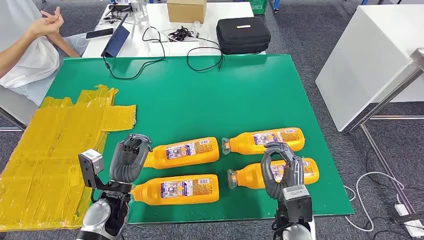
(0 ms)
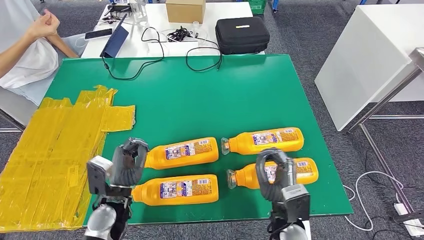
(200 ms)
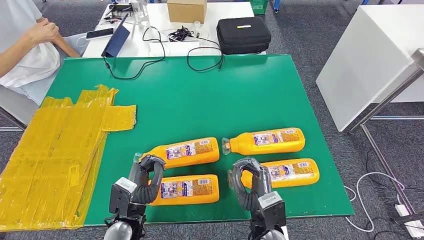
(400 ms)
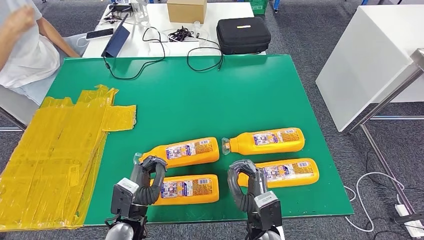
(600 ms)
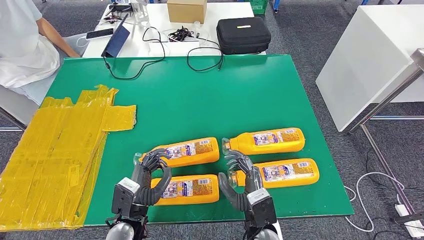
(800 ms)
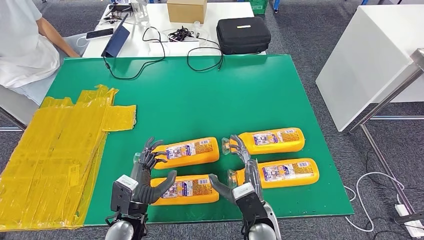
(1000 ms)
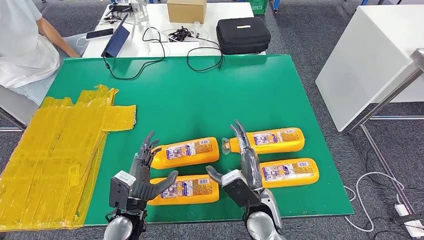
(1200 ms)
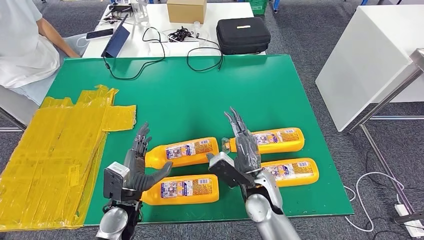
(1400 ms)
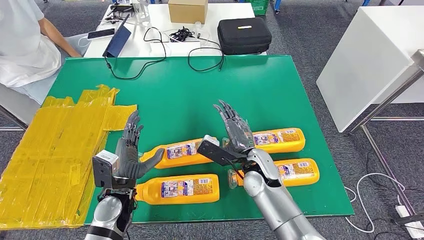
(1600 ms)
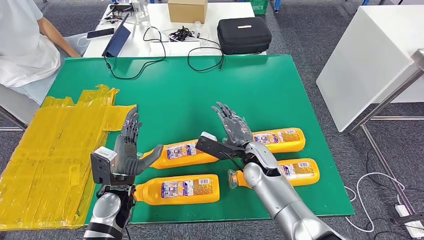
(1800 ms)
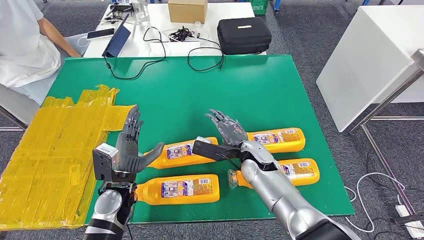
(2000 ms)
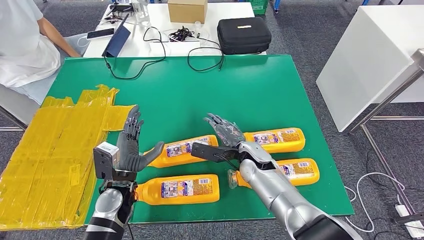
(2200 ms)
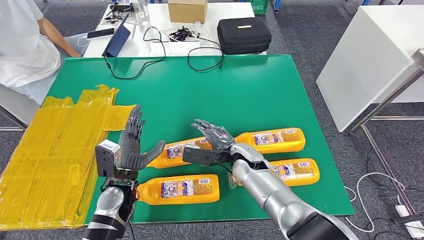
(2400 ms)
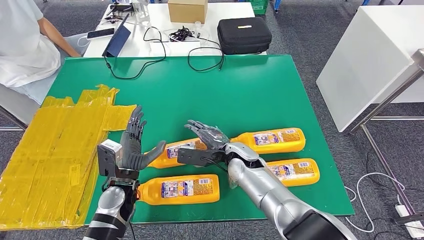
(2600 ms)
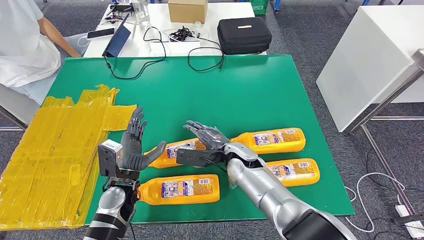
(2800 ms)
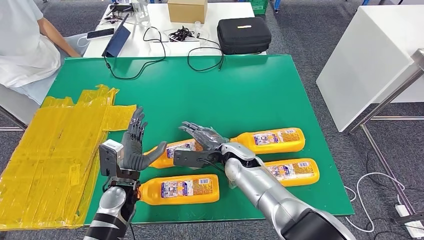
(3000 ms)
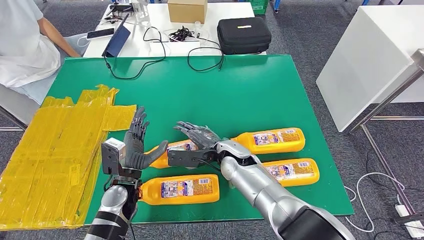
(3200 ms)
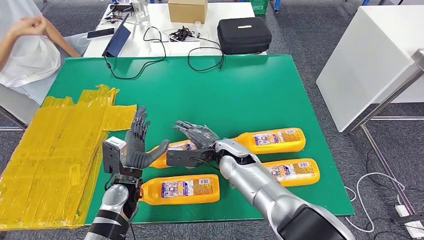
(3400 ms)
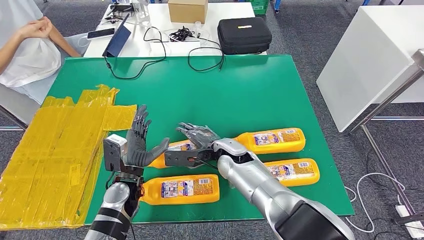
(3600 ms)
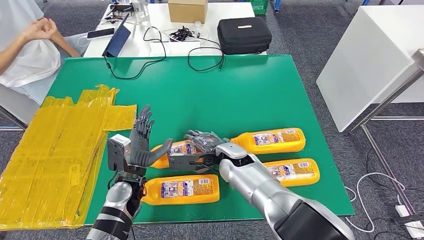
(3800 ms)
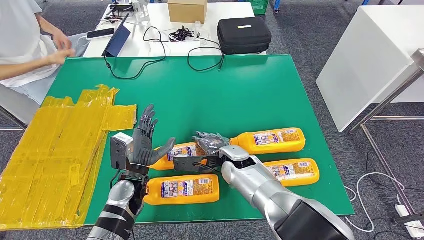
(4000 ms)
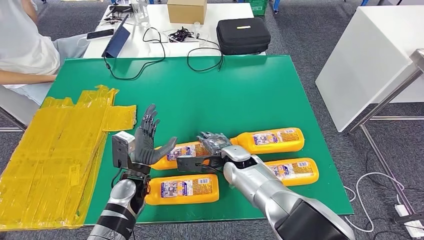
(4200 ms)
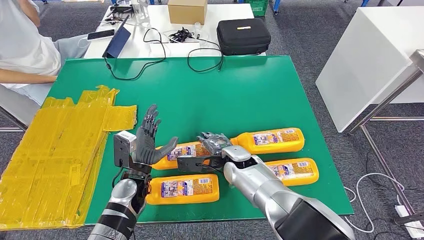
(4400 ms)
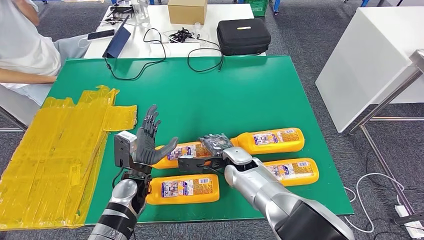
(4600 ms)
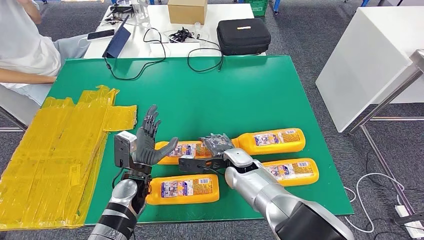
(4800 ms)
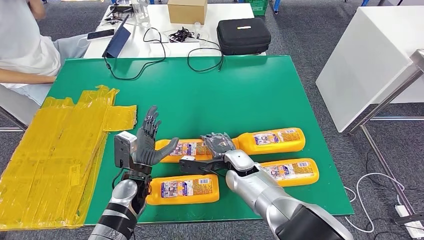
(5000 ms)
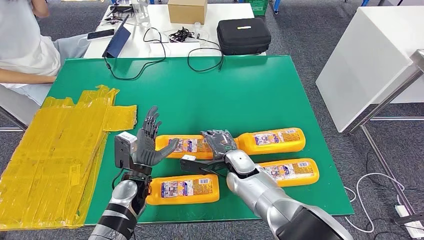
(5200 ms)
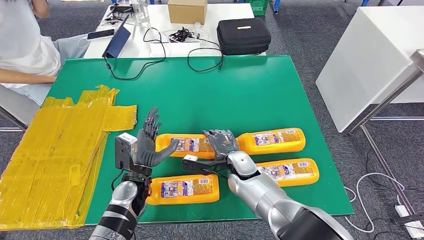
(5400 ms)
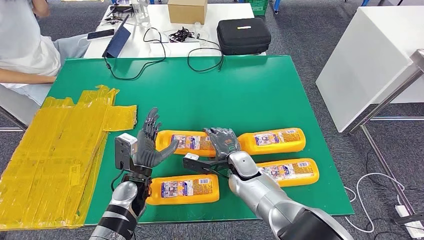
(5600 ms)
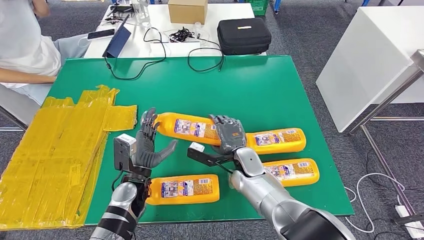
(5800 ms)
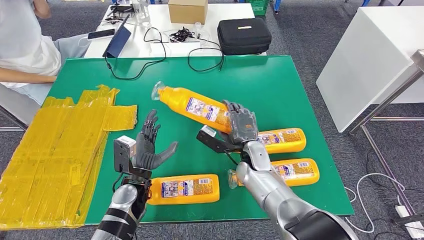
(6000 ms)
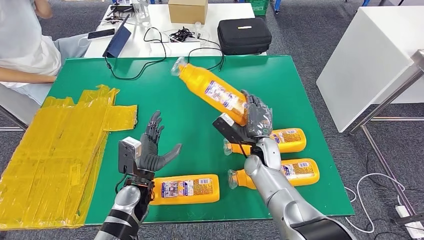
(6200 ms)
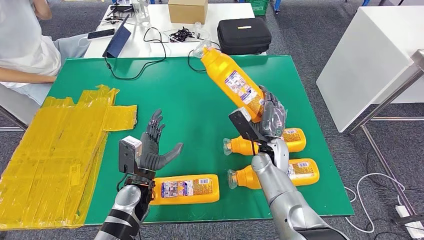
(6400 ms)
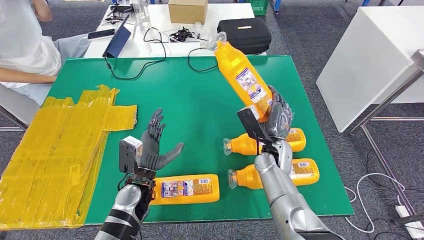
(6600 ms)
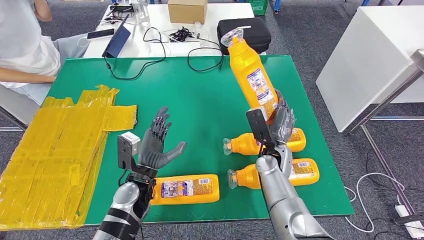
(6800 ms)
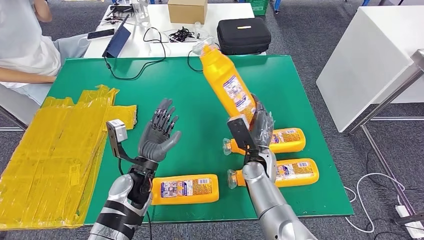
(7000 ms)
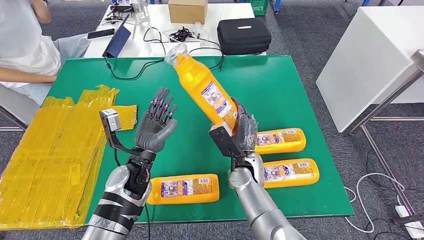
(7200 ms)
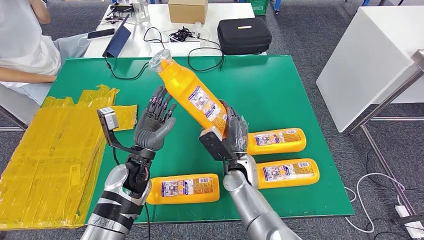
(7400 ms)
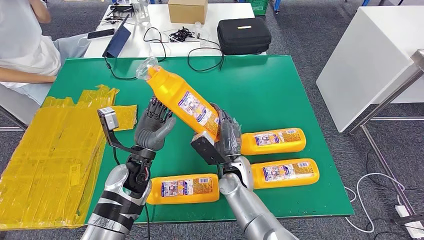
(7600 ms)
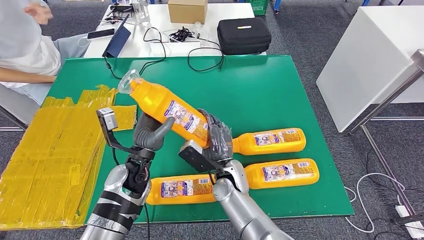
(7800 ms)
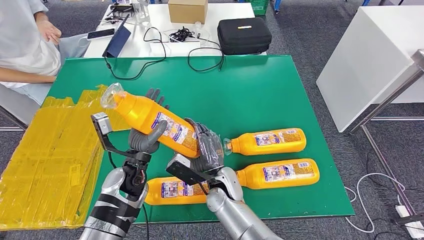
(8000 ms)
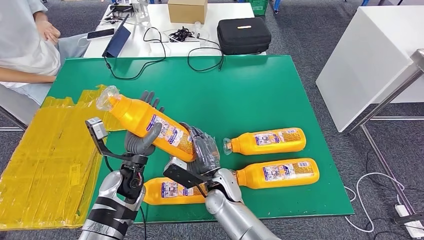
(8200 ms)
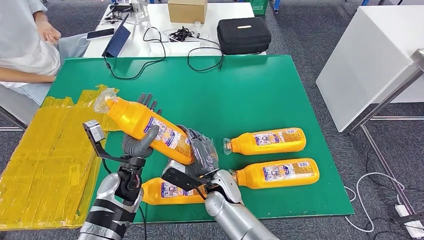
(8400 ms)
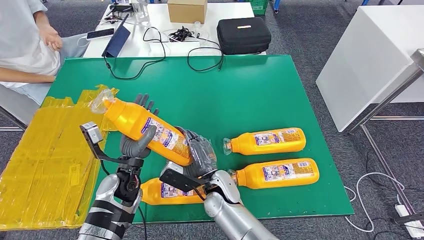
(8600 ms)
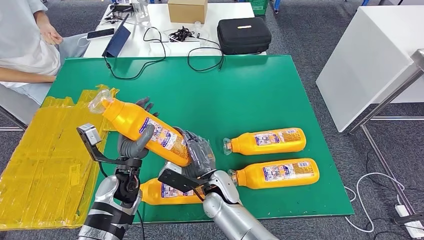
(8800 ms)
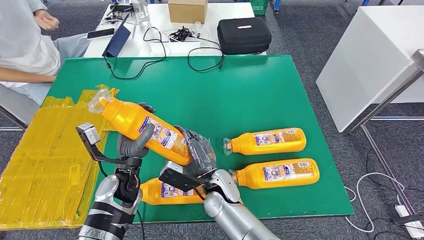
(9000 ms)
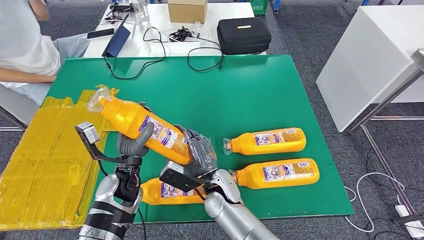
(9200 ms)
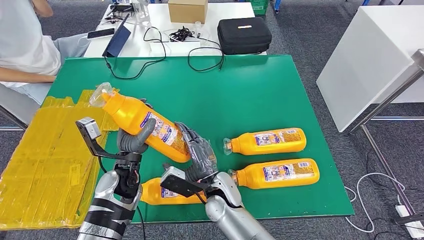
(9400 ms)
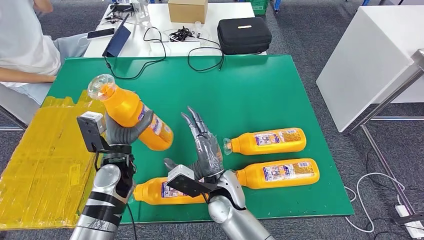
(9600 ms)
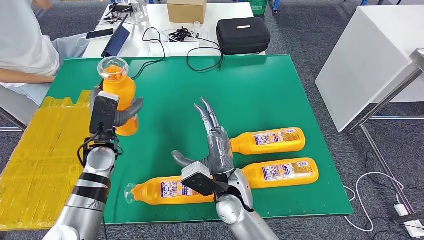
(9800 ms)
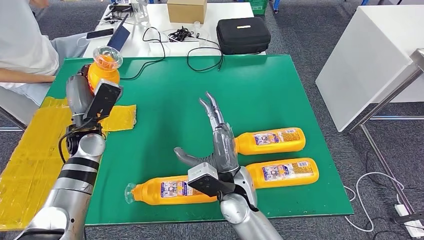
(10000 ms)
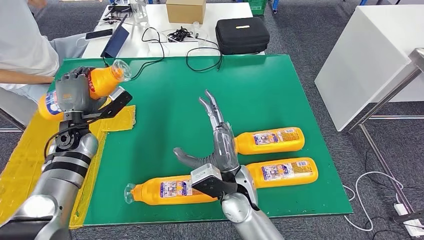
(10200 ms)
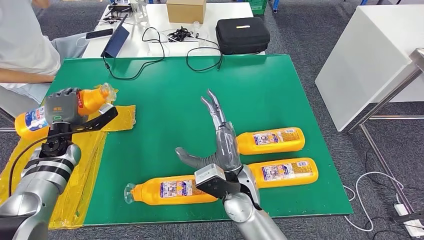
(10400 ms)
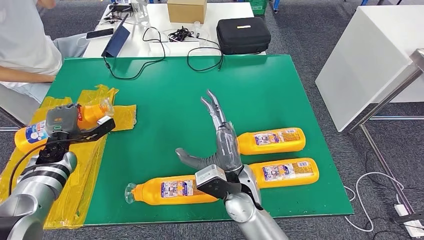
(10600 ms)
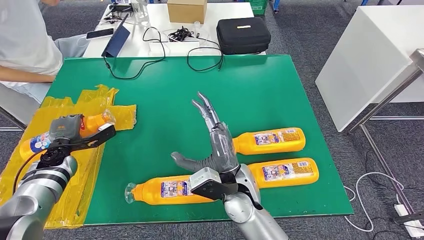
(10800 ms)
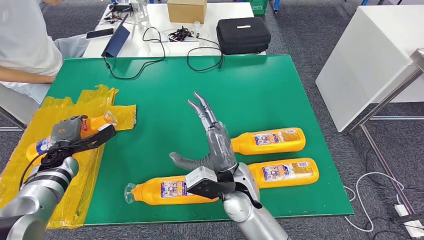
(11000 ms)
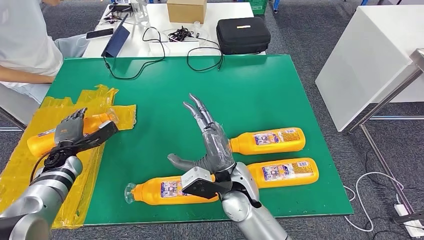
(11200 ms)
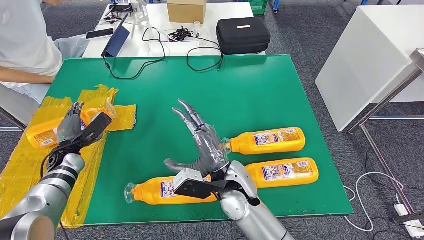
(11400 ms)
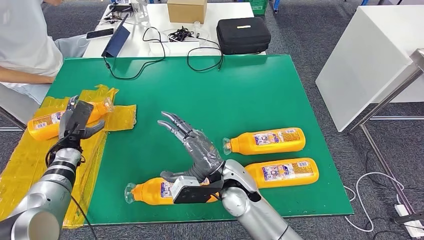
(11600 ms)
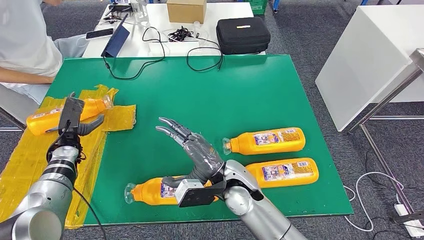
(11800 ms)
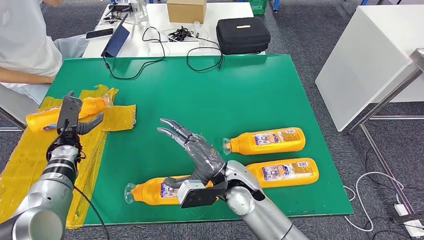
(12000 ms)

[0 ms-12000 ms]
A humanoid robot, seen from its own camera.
Step, 0 ms to 6800 ms: Take the fast-moving consumer goods bottle from the table.
Step, 7000 ms to 10600 ms: Flip the fast-moving consumer goods bottle to the front side.
1600 ms to 3000 ms: The right hand moves some 5 cm.
6000 ms to 7600 ms: The left hand travels upward by approximately 5 cm. Meanwhile the right hand goes some 5 cm to the left.
7600 ms to 9000 ms: The right hand goes approximately 5 cm to the left.

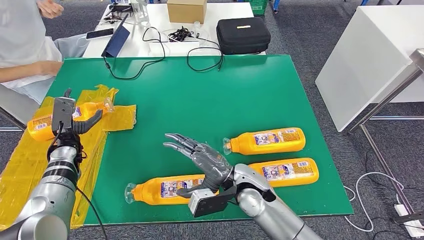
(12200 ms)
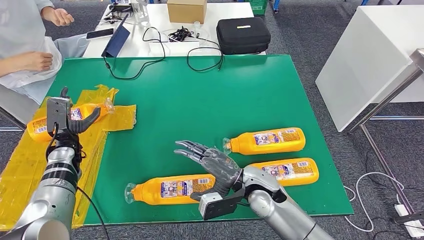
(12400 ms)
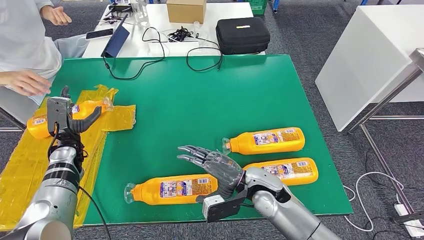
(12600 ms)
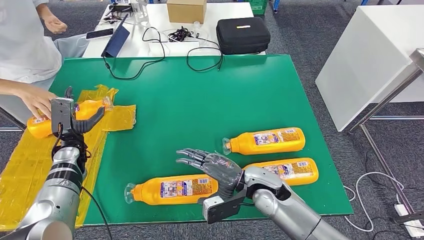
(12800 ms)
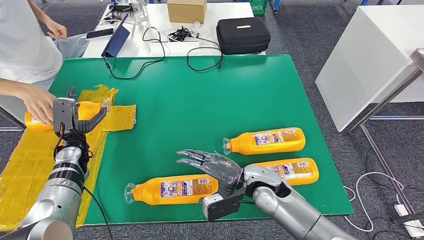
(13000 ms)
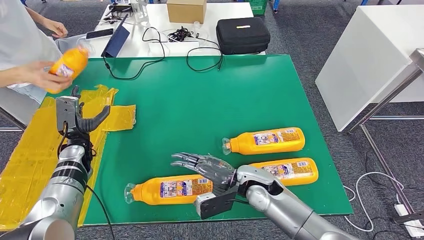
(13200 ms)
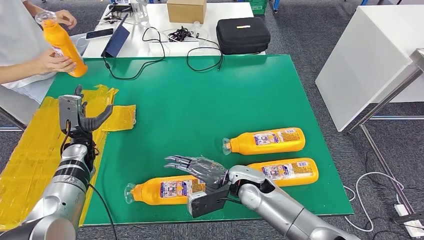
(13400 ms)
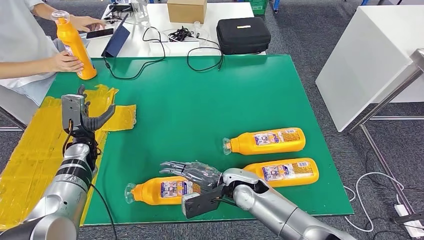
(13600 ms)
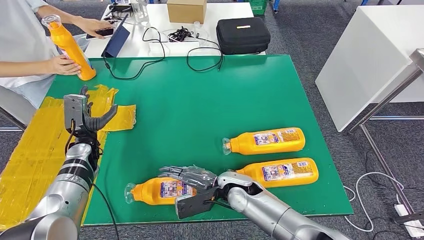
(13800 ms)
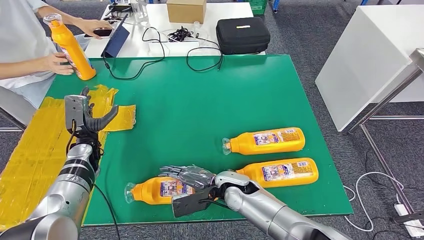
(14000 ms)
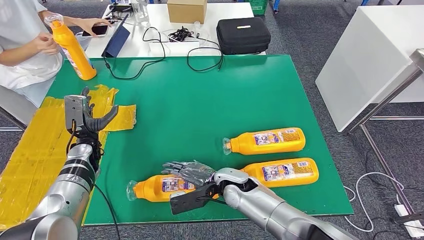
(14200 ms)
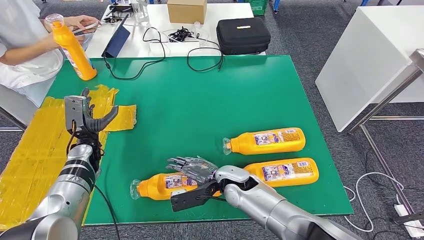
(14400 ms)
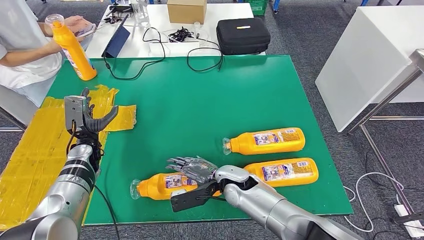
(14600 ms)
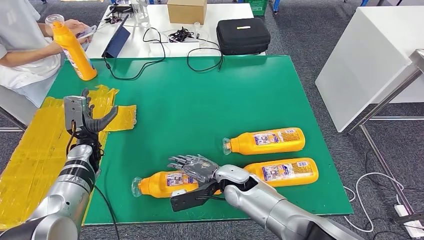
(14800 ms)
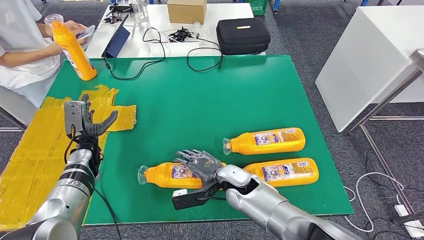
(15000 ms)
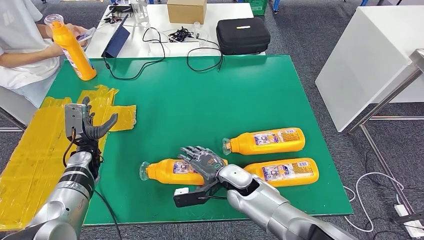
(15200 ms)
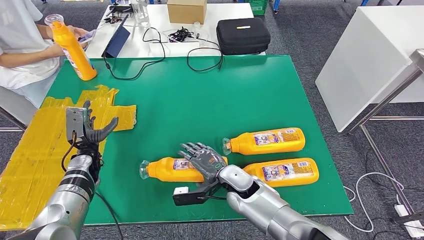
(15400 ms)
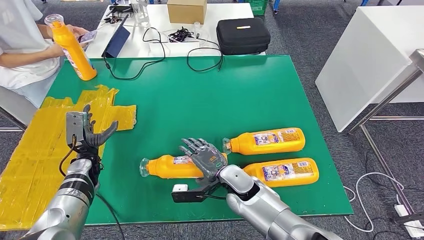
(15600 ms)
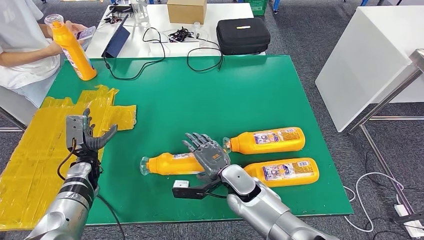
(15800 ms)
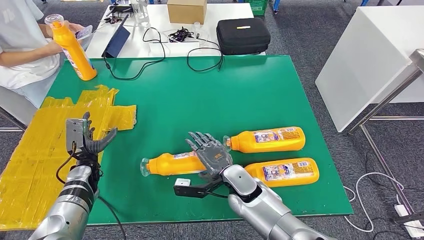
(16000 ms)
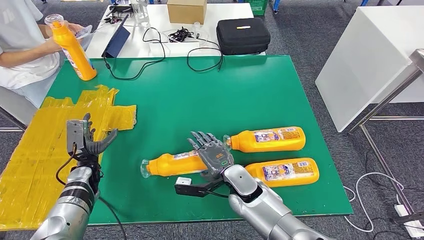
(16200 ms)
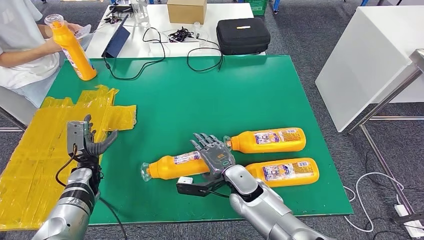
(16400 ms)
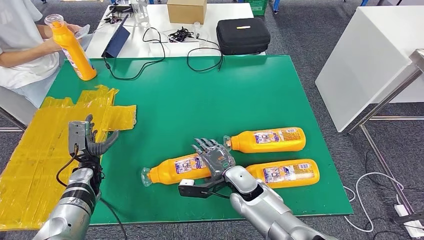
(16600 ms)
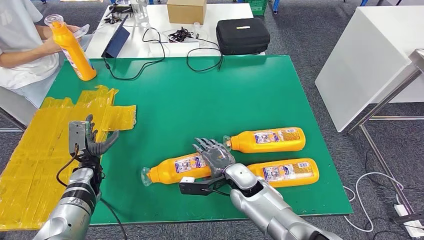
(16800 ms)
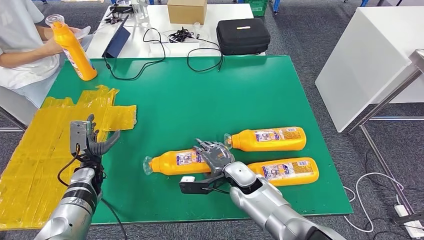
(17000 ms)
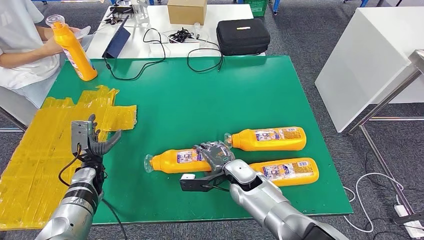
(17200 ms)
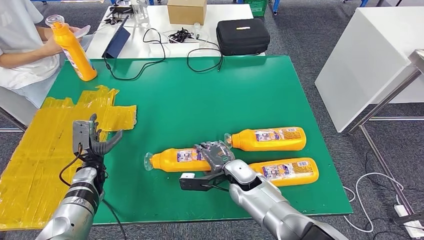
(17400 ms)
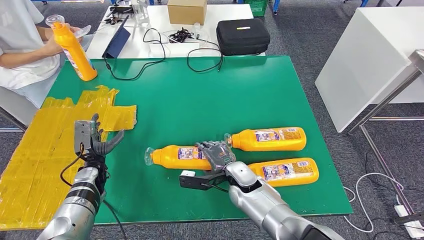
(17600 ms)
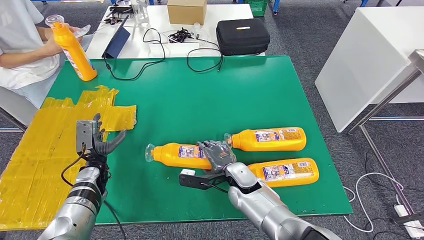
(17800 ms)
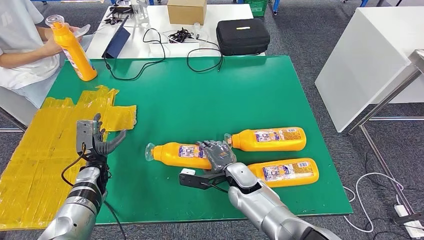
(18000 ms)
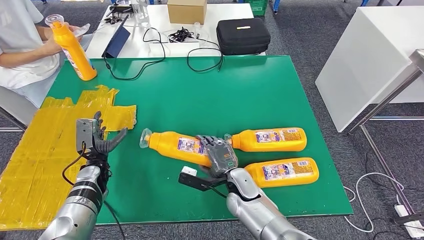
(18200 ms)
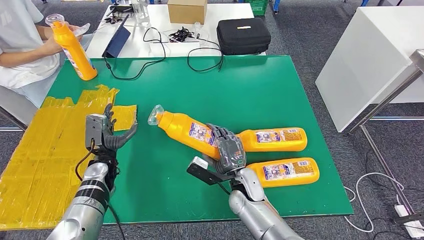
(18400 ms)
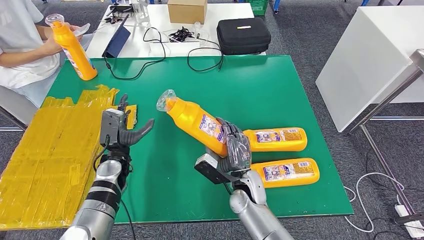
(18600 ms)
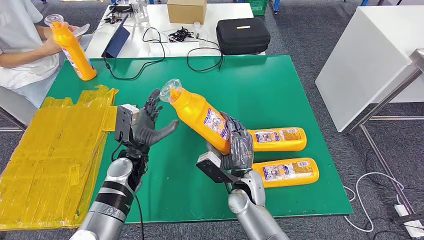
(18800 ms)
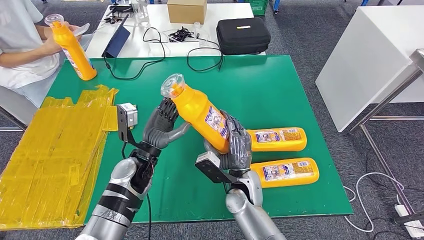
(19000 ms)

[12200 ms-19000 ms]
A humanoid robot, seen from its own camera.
12200 ms to 13600 ms: The right hand shifts about 5 cm downward.
15000 ms to 16200 ms: The left hand shifts by some 5 cm.
16200 ms to 17600 ms: The hands stay close to where they were, moving slightly.
